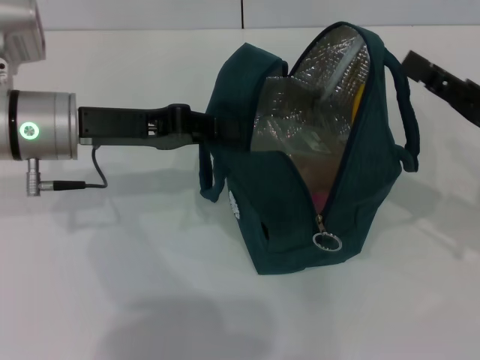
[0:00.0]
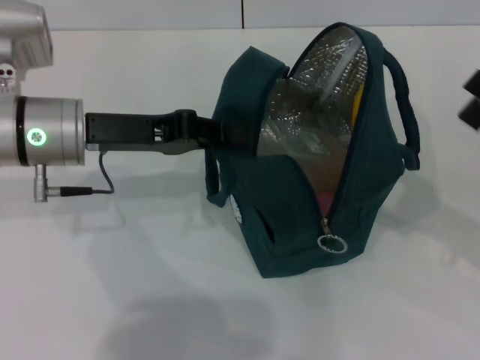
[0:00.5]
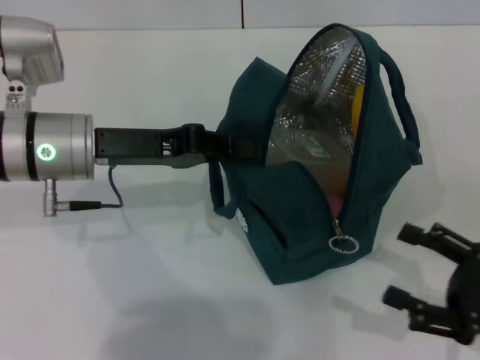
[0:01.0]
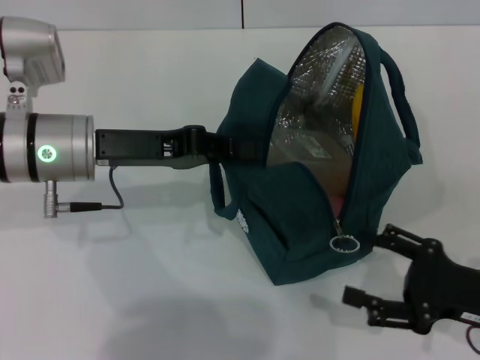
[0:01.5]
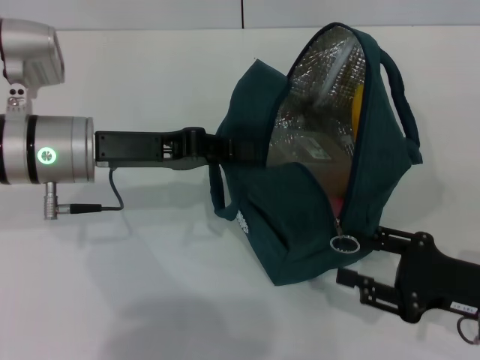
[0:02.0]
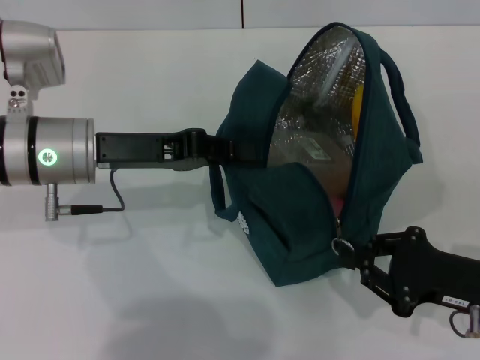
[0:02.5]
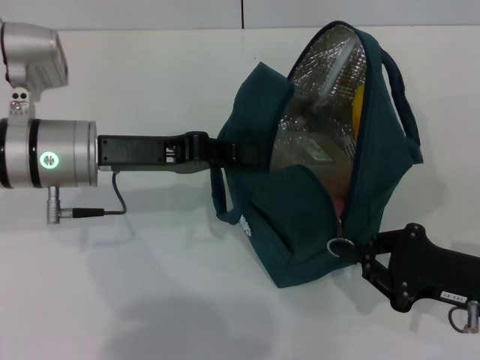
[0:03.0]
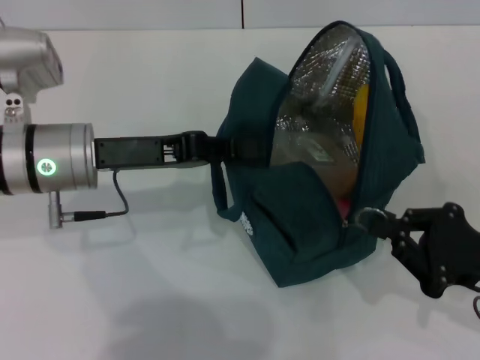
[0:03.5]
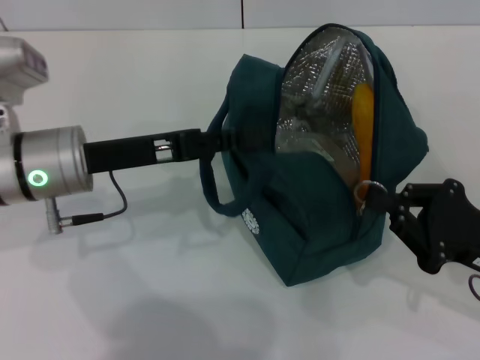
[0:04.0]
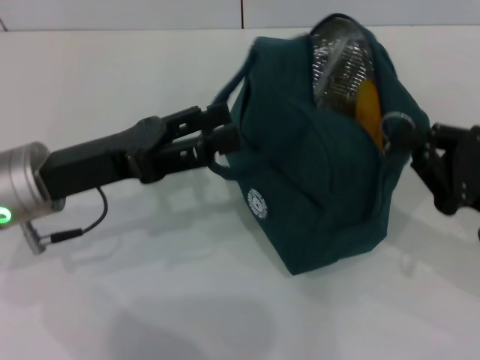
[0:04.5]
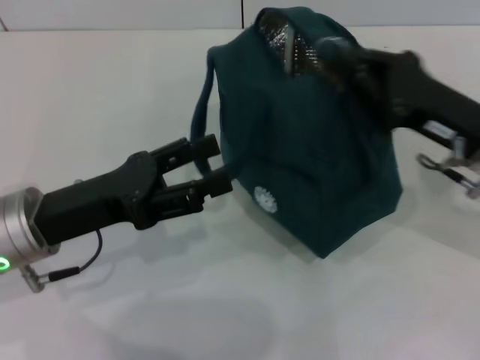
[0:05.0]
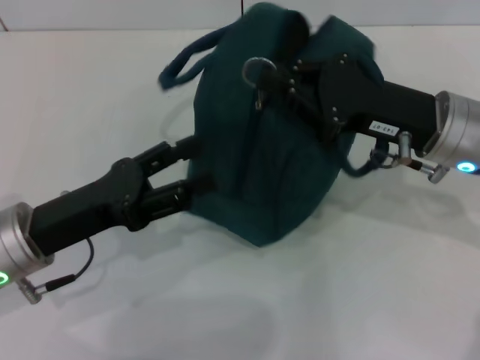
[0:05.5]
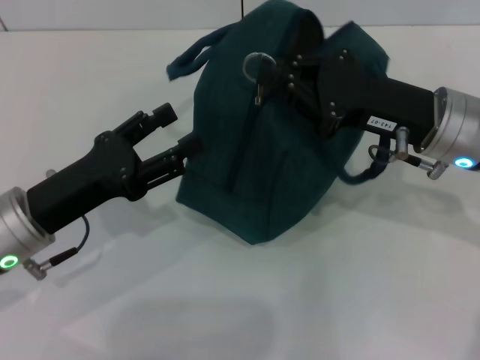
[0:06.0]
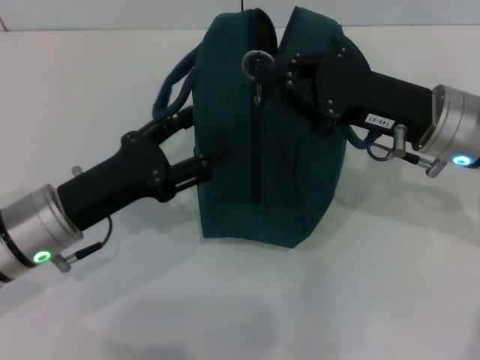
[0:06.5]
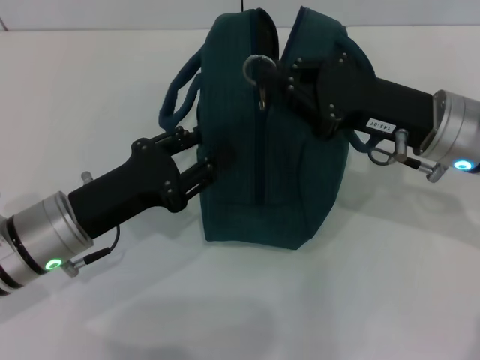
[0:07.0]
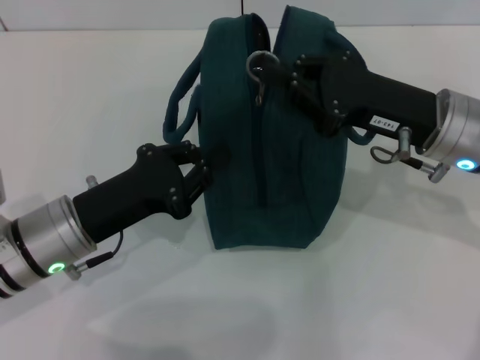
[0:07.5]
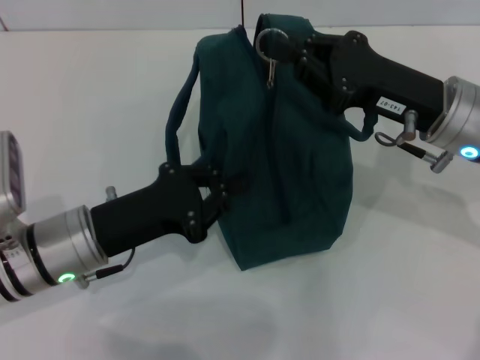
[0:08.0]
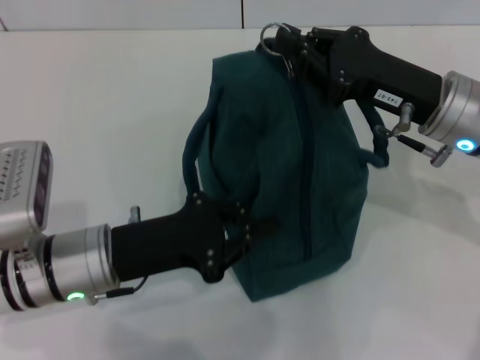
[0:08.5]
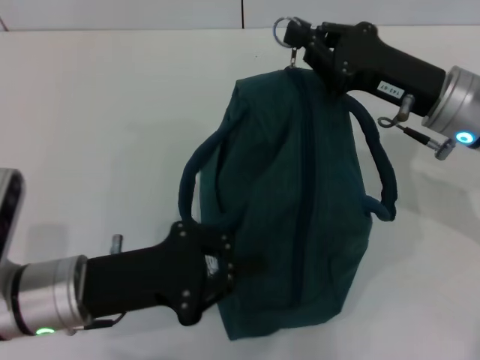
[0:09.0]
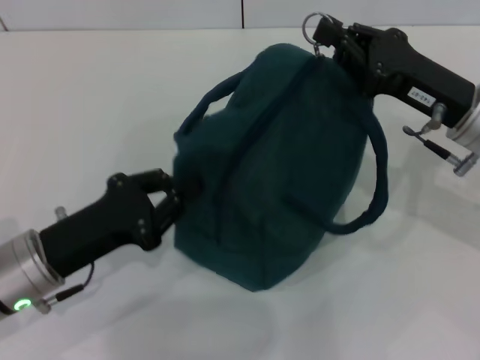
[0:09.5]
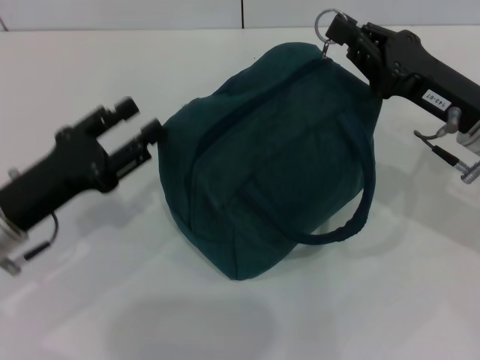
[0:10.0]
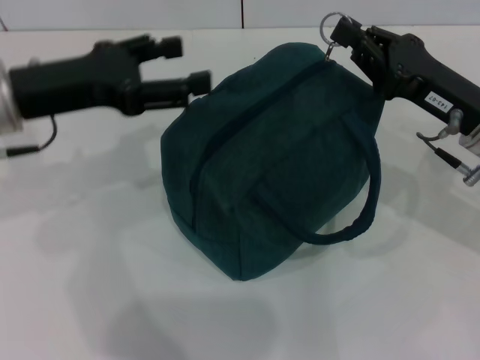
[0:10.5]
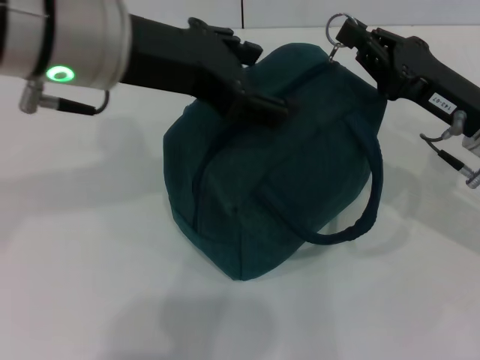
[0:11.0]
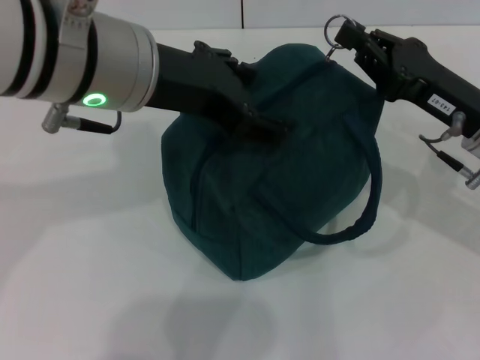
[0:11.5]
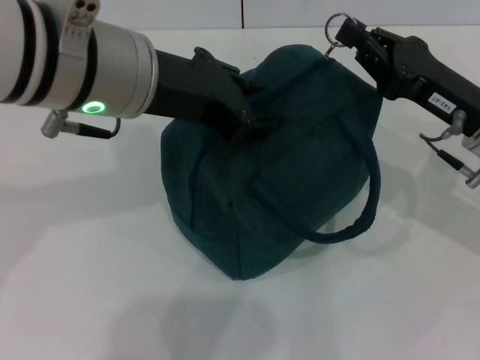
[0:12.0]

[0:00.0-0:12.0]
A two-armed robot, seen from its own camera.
Step, 0:01.0 to 0:04.5: Hold the lunch bag with your left hand.
0:00.0 to 0:02.0: The right gripper shifts some 10 cm downward and backward, and opens.
0:02.0 to 0:04.0: The right gripper closes.
0:04.0 to 0:06.0: The left gripper shifts roughly 5 cm backward, and opens its fingers. The right gripper travels forward, to the left and upward by roughly 15 cm.
0:06.0 to 0:08.0: The left gripper closes.
0:08.0 to 0:10.0: The left gripper goes roughly 5 cm to the left, and opens up.
0:10.0 to 0:12.0: The left gripper shifts some 25 cm upward and to the right.

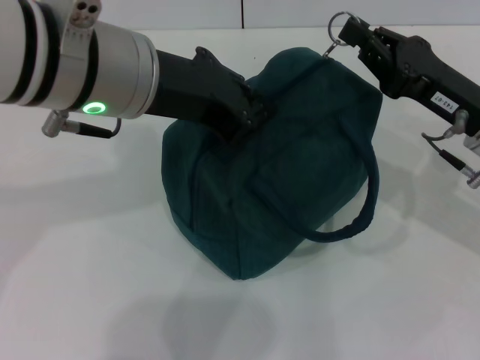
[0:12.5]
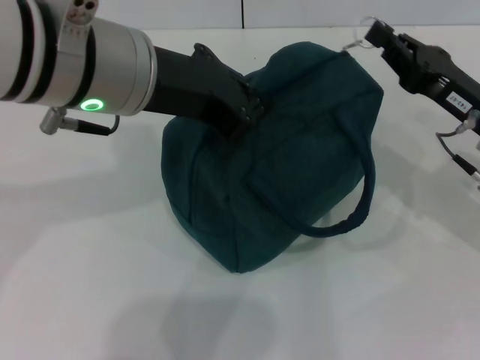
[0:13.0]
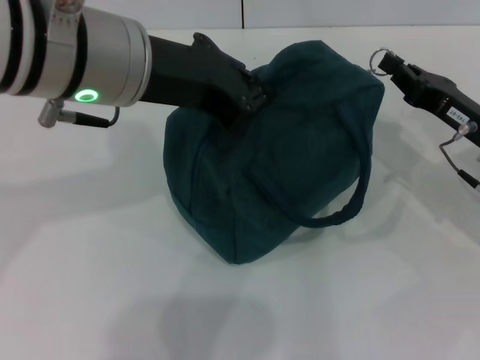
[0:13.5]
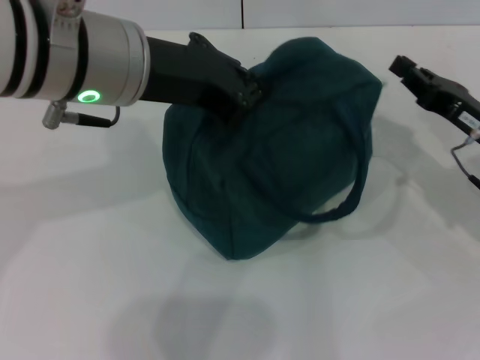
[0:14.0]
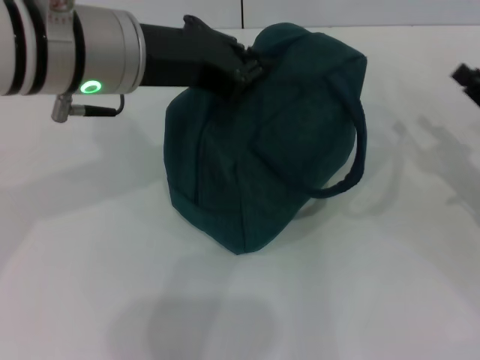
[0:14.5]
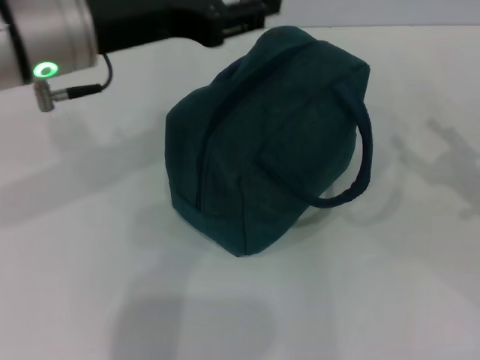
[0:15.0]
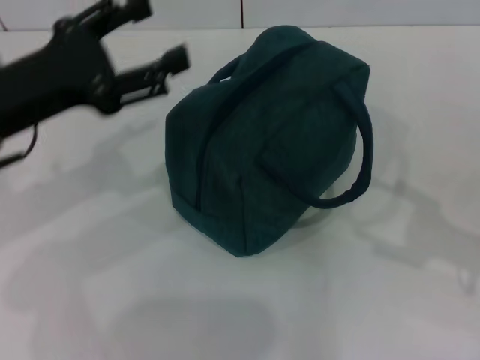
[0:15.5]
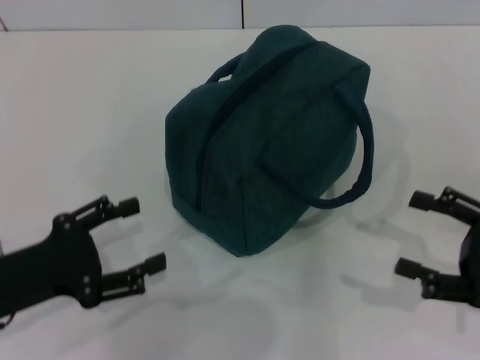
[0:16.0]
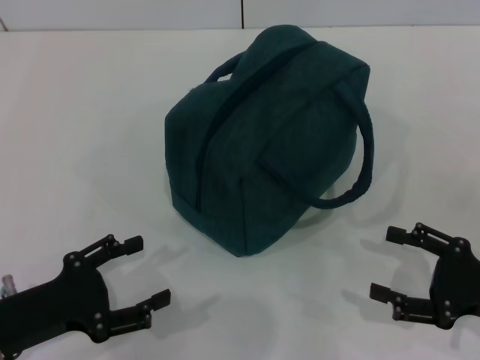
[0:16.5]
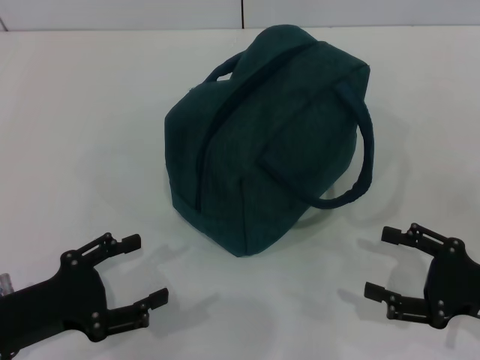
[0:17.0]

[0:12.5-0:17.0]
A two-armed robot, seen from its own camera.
Step, 0:14.5 to 0:15.5: Hold the lunch bag with your left hand.
0:12.5 to 0:14.5: The right gripper moves to the right and downward, approximately 10 cm, and opens up.
0:14.5 to 0:17.0: The right gripper travels backward by approximately 10 cm, moves some 5 cm upward and comes back, and opens. The left gripper heads downward, to the left and backward, covering roughly 30 cm, and opens up.
